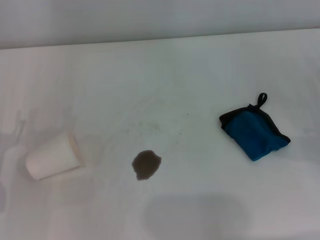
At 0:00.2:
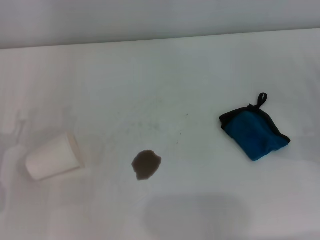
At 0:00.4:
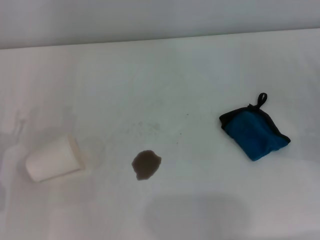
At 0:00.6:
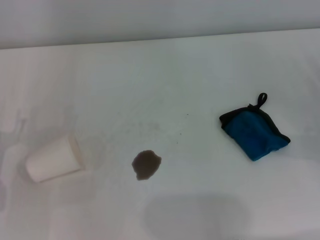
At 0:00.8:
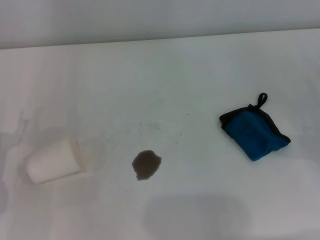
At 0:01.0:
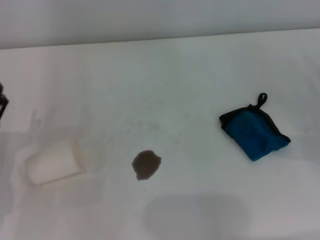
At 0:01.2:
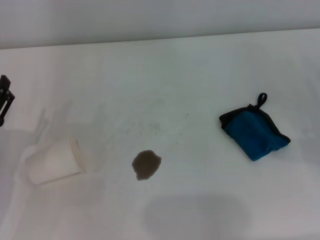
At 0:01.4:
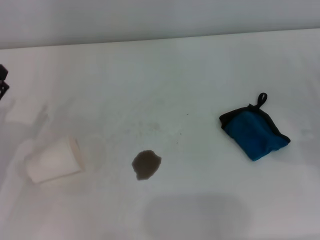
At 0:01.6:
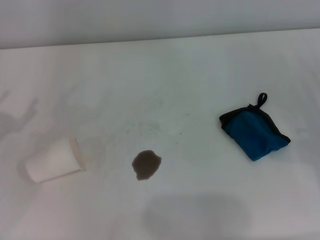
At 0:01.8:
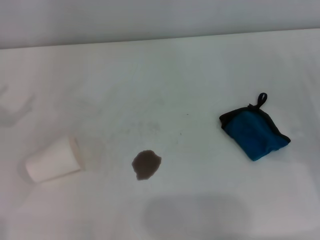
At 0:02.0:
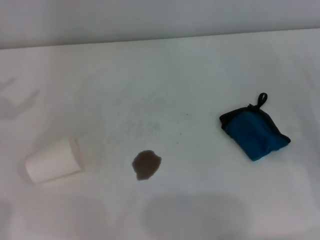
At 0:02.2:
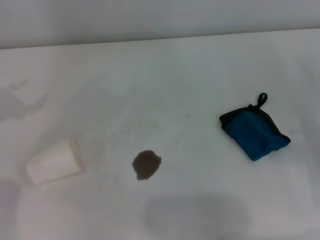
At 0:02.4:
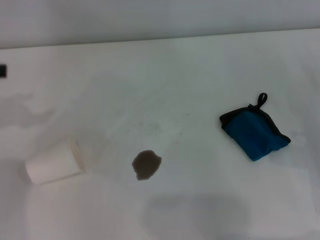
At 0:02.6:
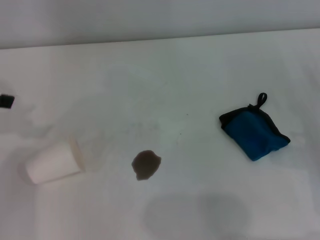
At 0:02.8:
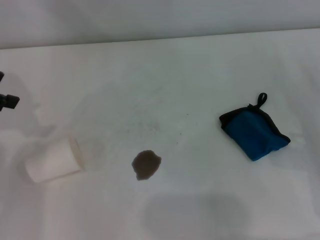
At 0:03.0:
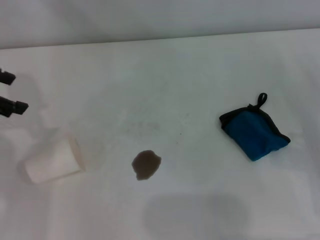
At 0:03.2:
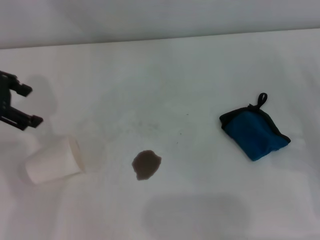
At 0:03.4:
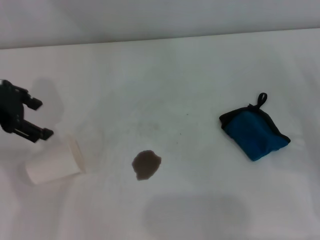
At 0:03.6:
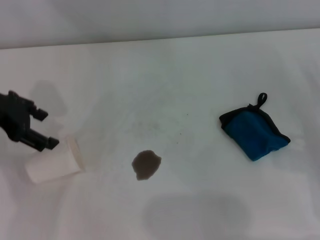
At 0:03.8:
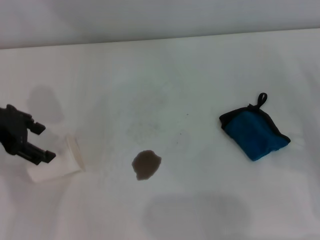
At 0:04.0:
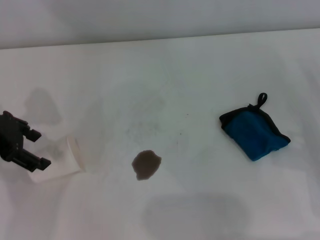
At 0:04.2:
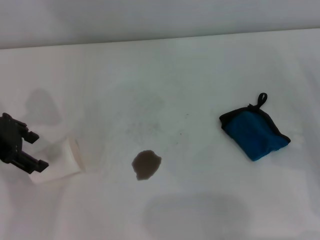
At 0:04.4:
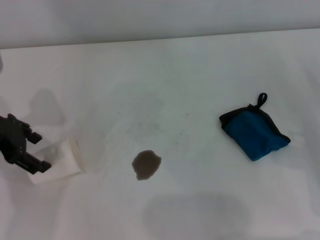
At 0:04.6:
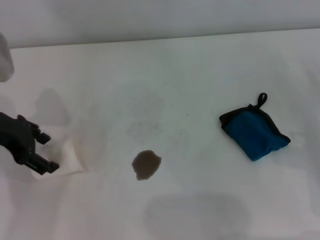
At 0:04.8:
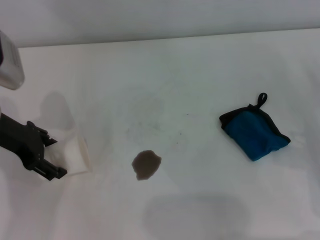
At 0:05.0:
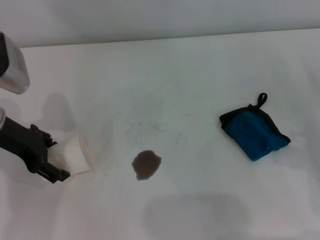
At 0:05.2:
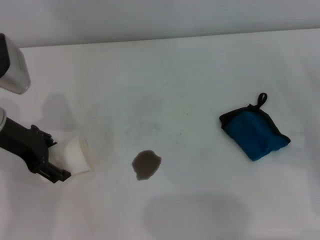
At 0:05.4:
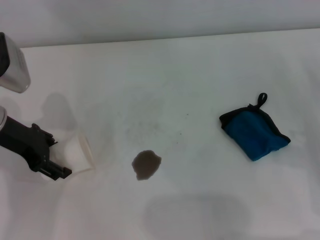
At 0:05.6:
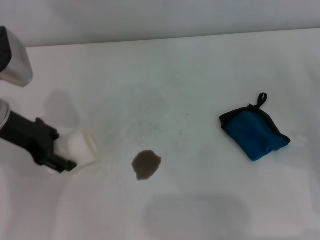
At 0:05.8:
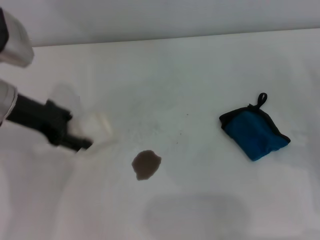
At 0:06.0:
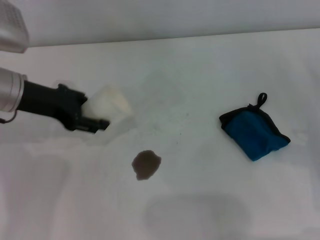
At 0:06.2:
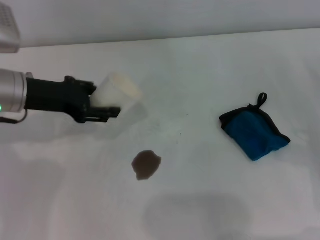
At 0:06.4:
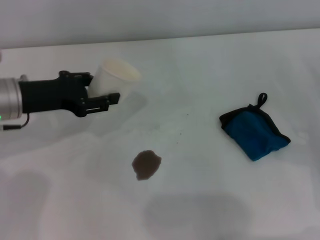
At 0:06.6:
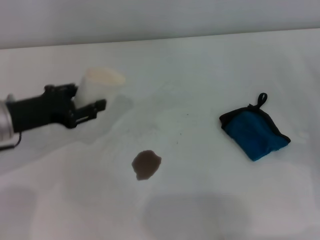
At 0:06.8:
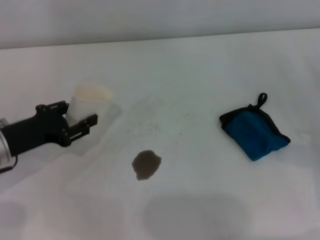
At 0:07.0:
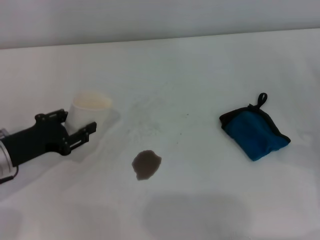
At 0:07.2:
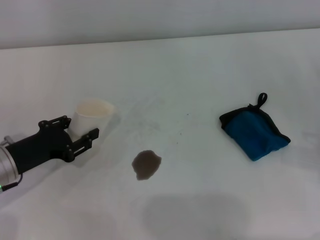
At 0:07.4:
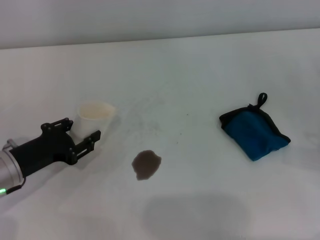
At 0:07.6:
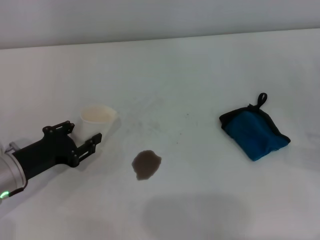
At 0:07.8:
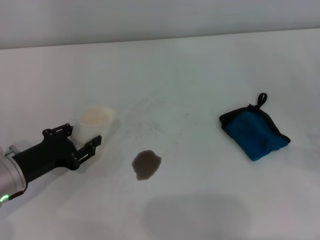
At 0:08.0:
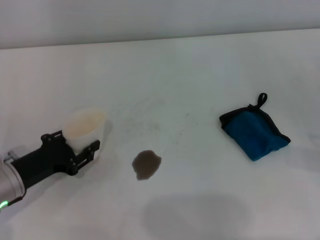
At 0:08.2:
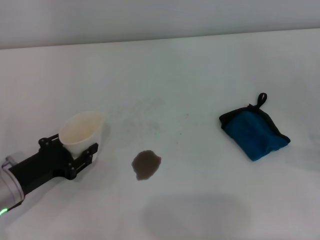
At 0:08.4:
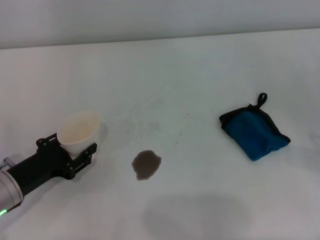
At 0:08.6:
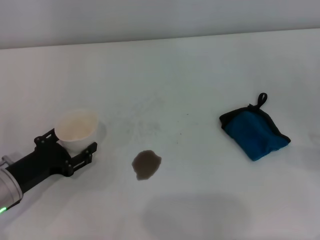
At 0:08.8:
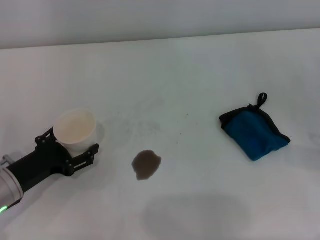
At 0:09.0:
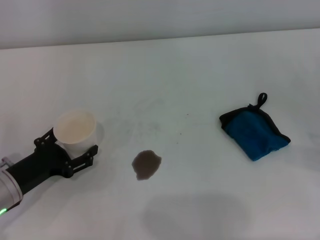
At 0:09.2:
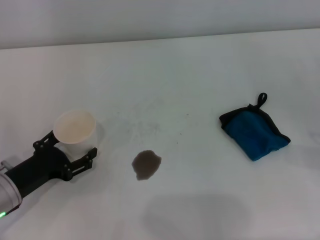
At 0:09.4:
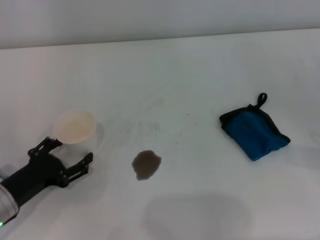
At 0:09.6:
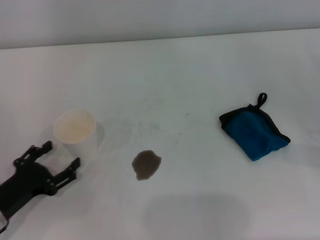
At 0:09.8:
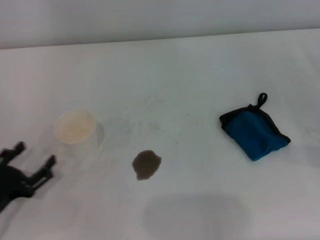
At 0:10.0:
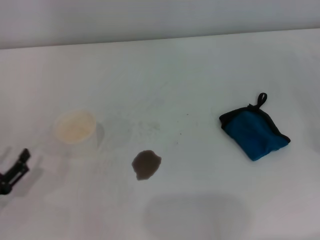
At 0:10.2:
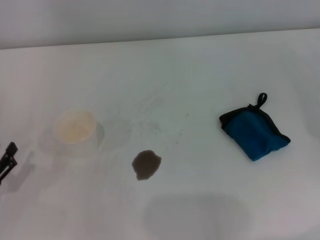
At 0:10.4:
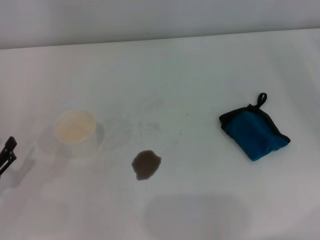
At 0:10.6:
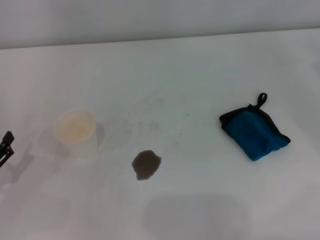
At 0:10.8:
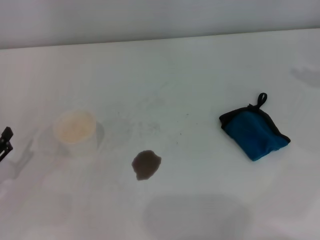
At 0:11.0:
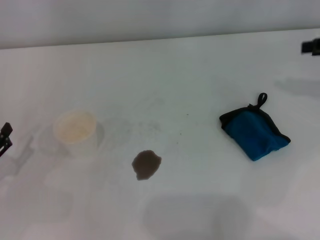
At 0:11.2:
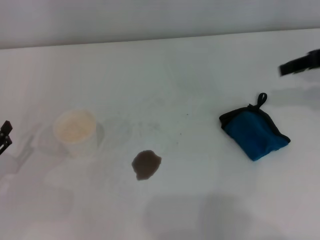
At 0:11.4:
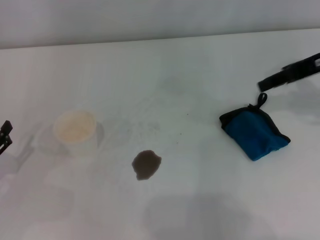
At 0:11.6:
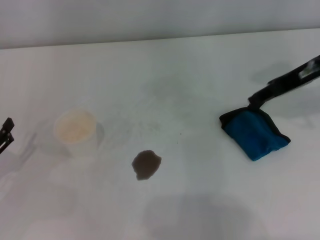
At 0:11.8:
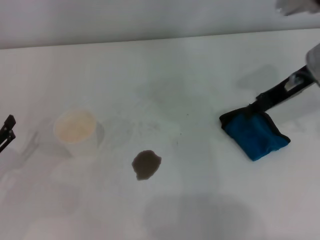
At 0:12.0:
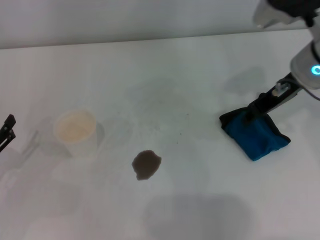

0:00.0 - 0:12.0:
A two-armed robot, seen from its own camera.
Step, 0:00.0 - 0:05.2: Grasp the paper cup with the left gripper.
Step, 0:05.6 - 0:08.6: Stand the paper cup upright with the left gripper.
0:01.6 - 0:03.0: The left gripper is displaced upward and forward by some 20 cm.
0:03.0 - 0:04.4: The left gripper travels downward by some 5 cm.
0:04.4 - 0:06.0: The left gripper shifts by roughly 5 cm, and closes.
0:06.0 - 0:07.6: The left gripper travels downward and backward by approximately 15 cm, and closes.
0:07.6 - 0:09.0: The left gripper opens.
0:09.0 - 0:10.4: The left gripper goes roughly 10 cm to the left and backward.
0:10.4 - 0:12.0: The right gripper is displaced to the left by approximately 25 cm.

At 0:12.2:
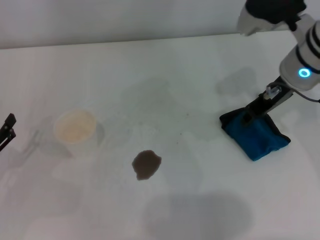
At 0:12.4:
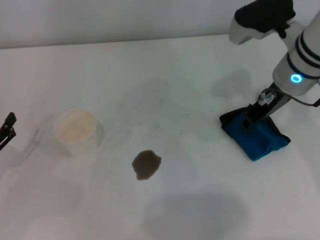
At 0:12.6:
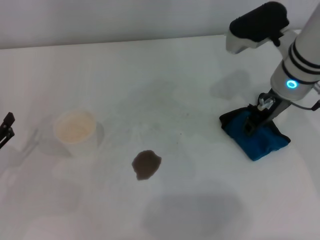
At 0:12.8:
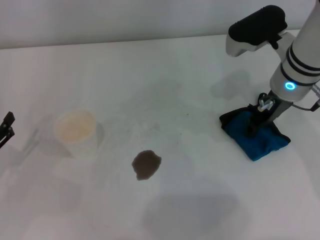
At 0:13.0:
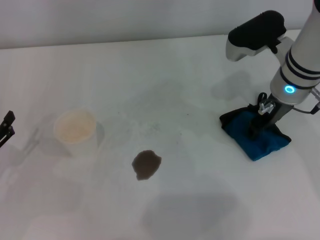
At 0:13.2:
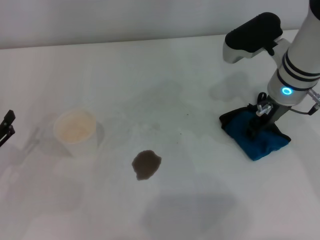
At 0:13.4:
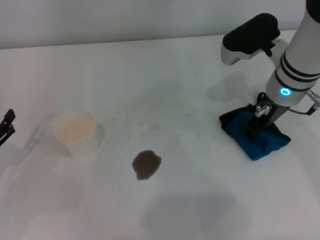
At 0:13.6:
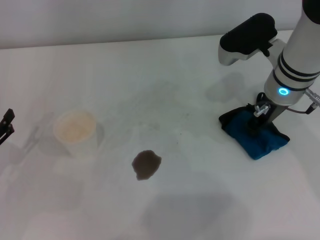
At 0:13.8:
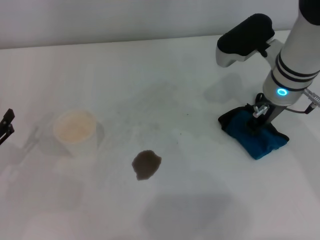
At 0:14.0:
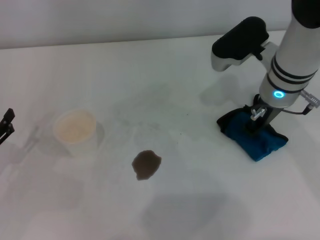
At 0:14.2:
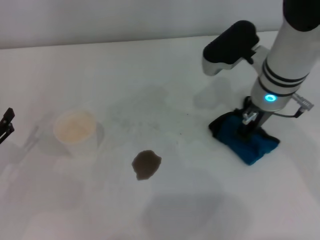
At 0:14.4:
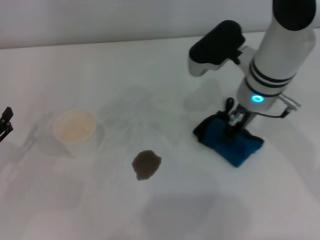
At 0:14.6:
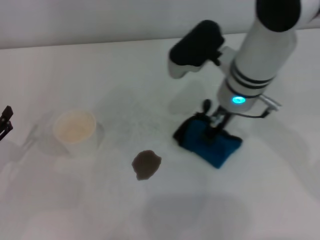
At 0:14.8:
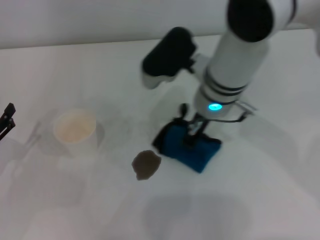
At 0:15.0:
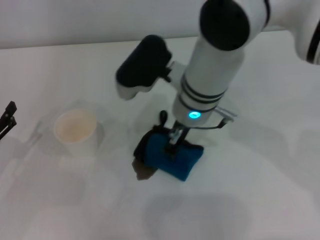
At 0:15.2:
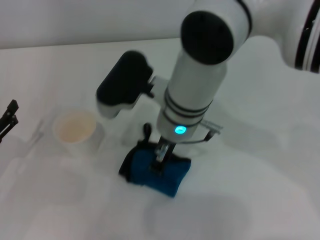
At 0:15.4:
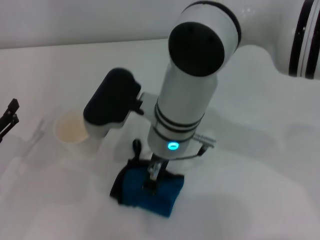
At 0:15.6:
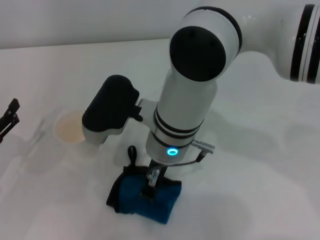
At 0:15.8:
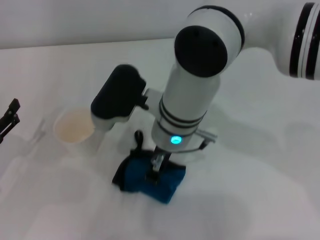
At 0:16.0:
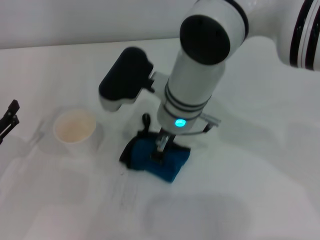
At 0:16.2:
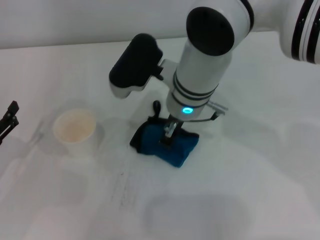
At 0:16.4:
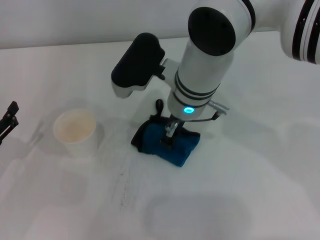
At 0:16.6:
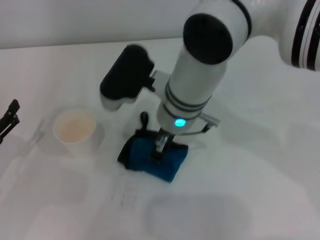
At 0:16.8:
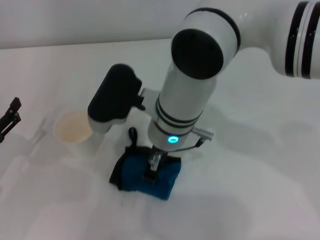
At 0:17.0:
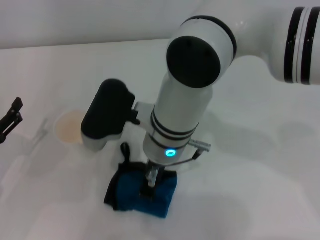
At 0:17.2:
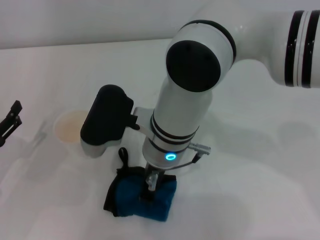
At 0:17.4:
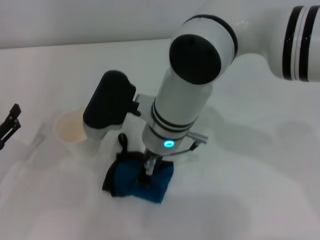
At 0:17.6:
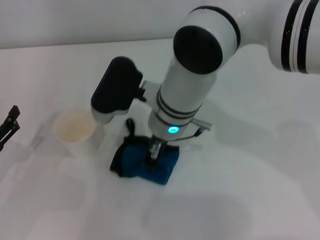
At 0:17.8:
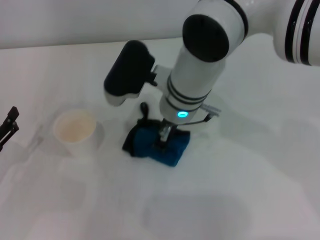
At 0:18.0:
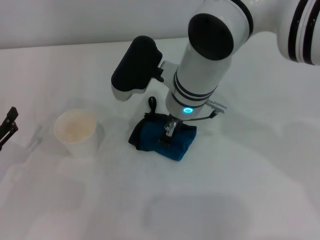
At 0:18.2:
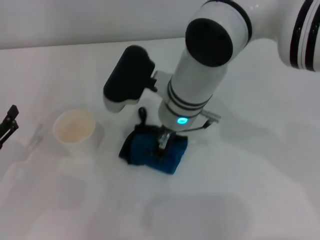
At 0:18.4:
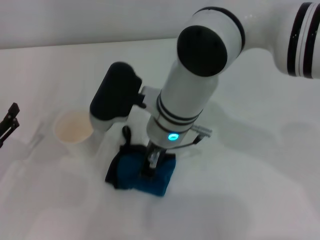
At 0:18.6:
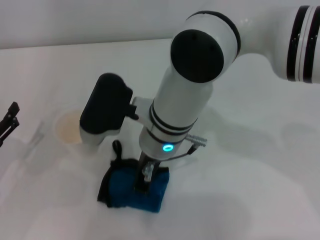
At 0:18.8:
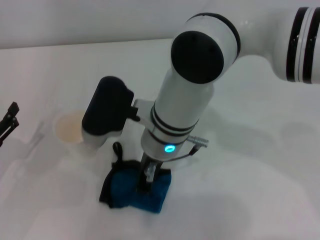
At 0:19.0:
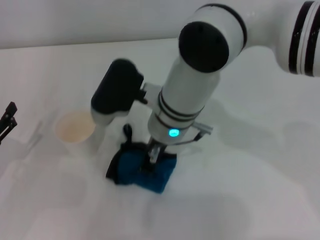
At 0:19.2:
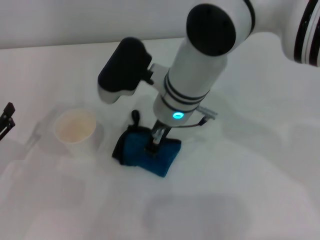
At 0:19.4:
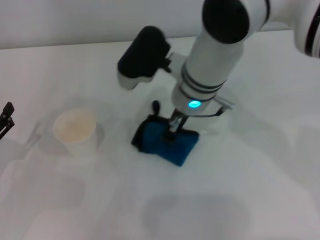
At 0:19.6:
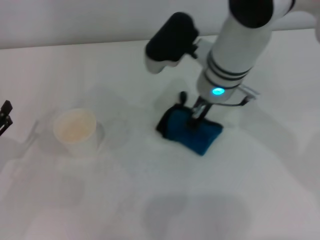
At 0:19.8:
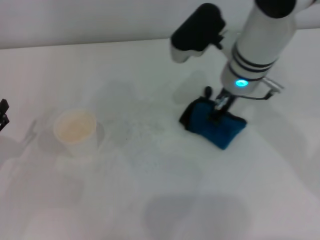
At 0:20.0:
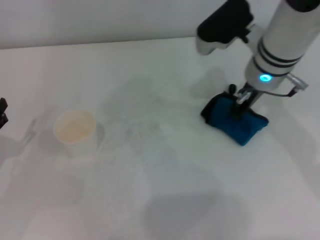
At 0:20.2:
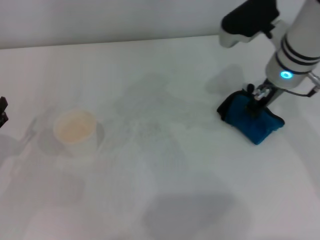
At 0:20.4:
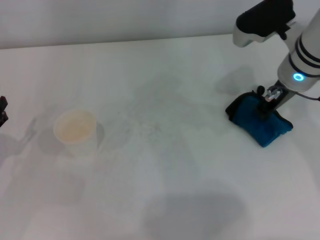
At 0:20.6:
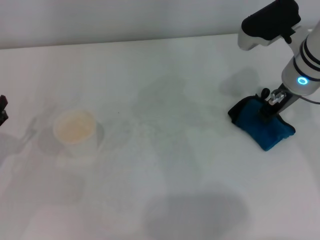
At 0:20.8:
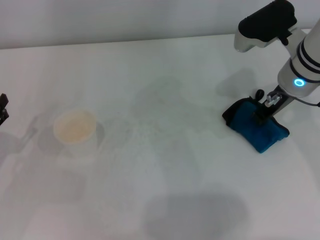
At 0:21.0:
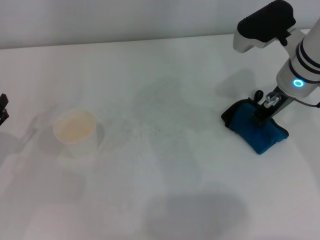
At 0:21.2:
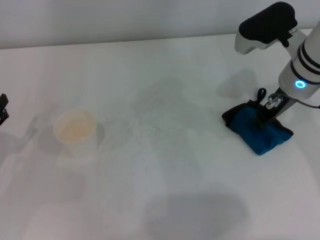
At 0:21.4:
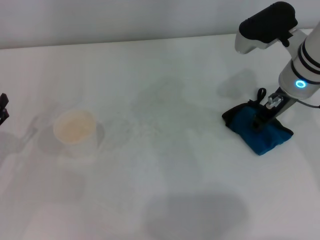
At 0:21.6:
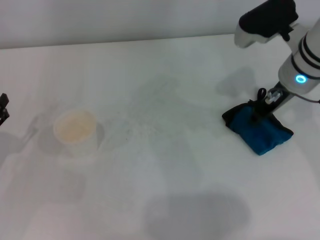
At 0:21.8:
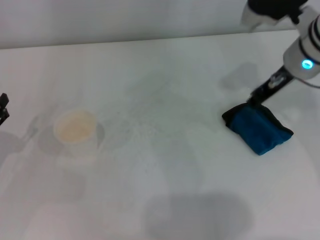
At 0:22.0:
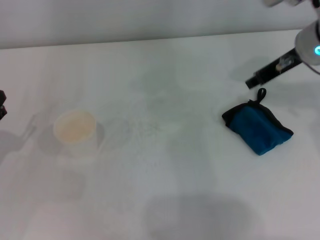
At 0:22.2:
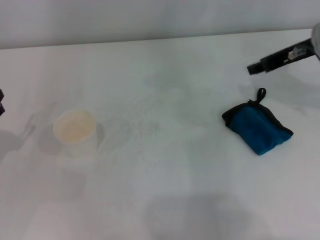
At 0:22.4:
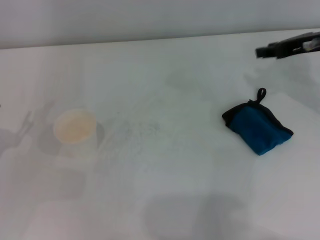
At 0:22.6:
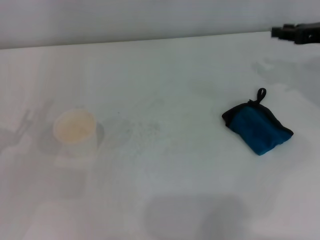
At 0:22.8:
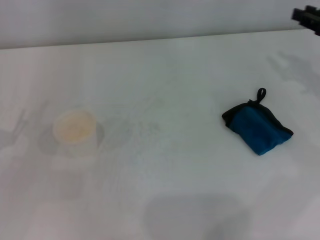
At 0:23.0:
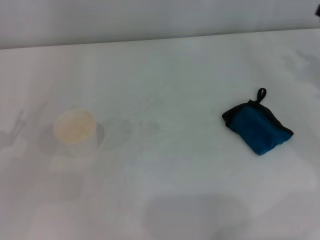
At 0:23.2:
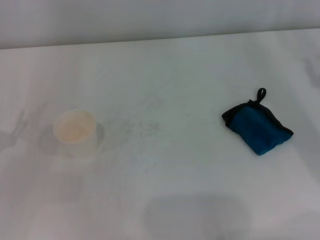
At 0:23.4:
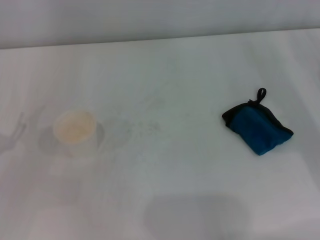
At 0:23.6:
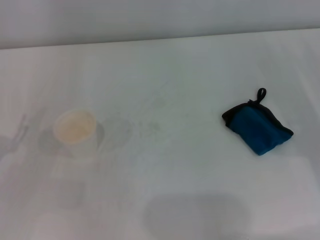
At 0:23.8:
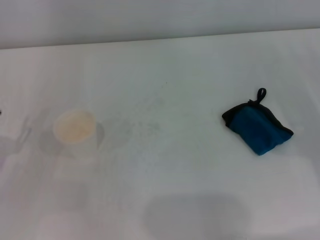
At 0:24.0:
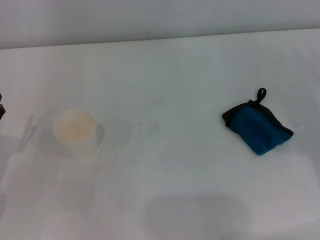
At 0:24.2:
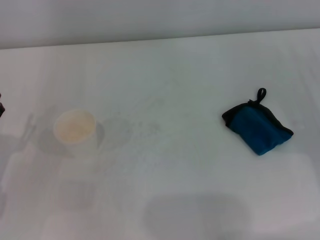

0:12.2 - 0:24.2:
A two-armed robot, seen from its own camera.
Step, 0:14.2 - 0:20.6: Wipe the stains off the table with the right gripper.
Step, 0:20.8 - 0:21.4: Place the rag on the table with the right gripper.
0:12.2 - 0:13.8: The right gripper closes up.
0:13.8 - 0:15.2: The right gripper travels to the left by roughly 15 cm.
0:15.2 - 0:18.2: There are only small adjustments of the grippers.
0:18.2 - 0:19.8: The right gripper goes about 10 cm to the right.
0:19.8 - 0:21.2: The right gripper goes approximately 10 cm to the right, and opens its fingers.
0:21.2 - 0:22.6: The right gripper travels to the right by approximately 15 cm, and opens.
0:22.6 - 0:24.2: The right gripper travels downward and backward by about 15 cm.
